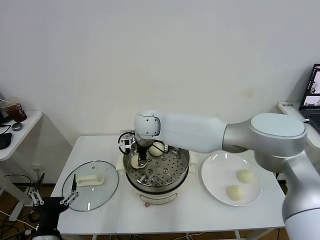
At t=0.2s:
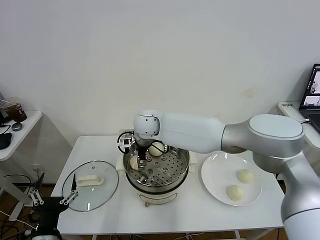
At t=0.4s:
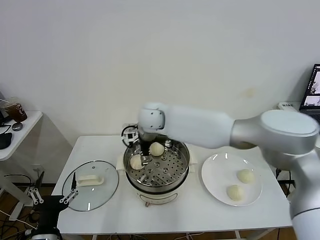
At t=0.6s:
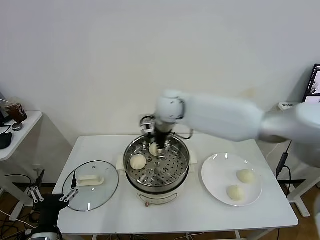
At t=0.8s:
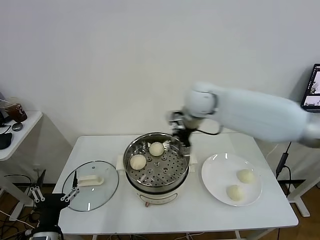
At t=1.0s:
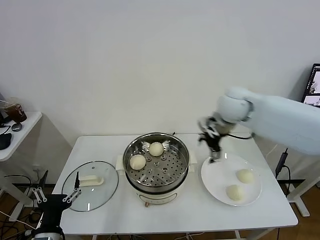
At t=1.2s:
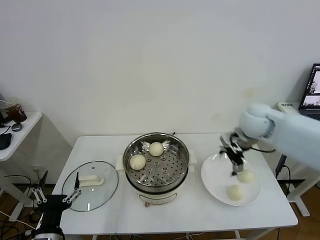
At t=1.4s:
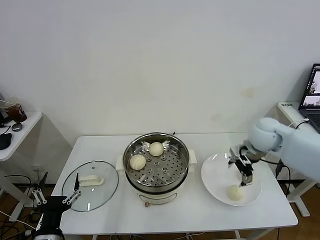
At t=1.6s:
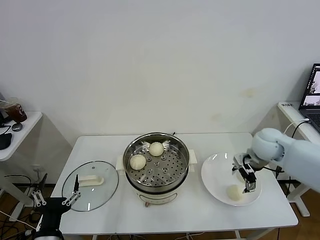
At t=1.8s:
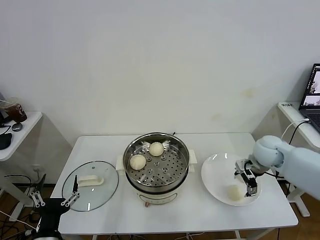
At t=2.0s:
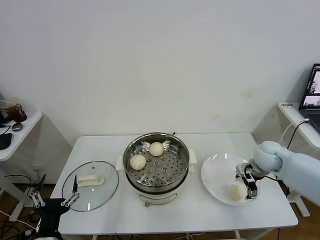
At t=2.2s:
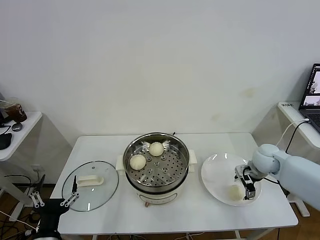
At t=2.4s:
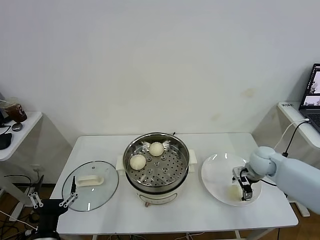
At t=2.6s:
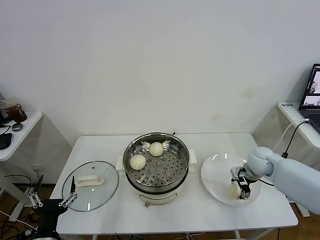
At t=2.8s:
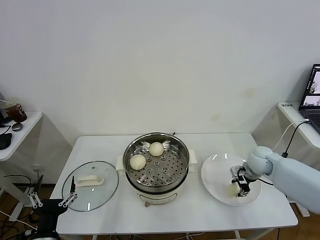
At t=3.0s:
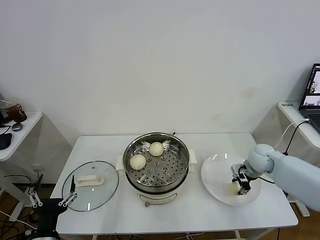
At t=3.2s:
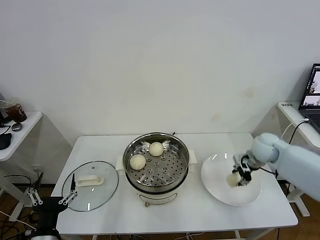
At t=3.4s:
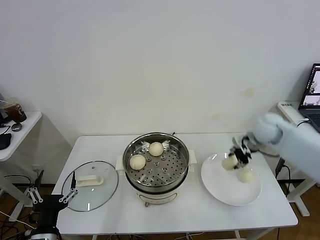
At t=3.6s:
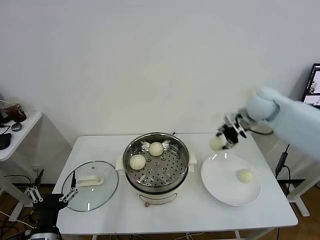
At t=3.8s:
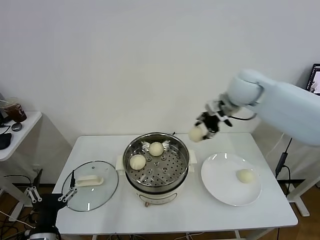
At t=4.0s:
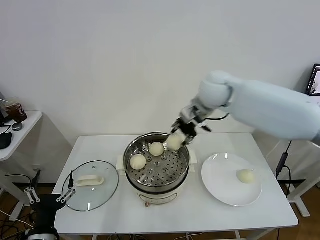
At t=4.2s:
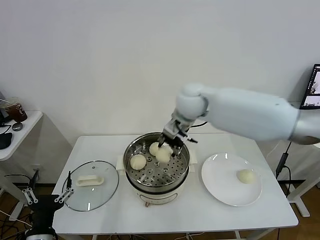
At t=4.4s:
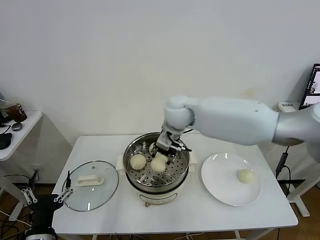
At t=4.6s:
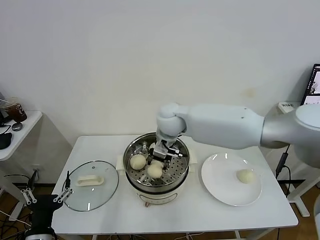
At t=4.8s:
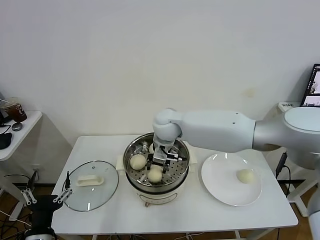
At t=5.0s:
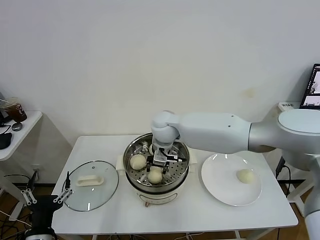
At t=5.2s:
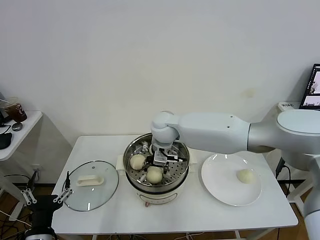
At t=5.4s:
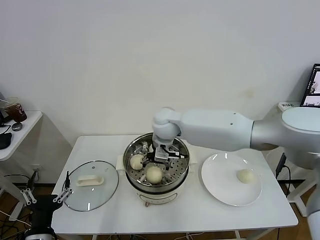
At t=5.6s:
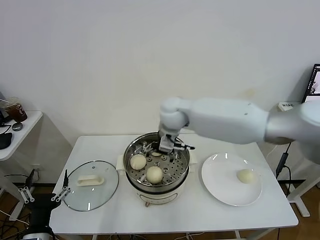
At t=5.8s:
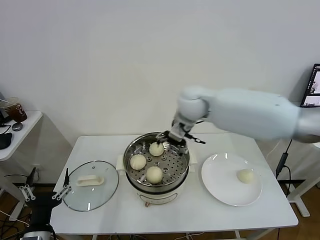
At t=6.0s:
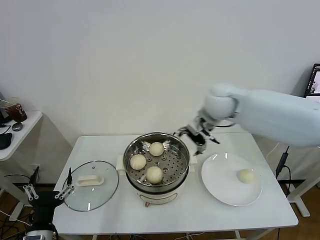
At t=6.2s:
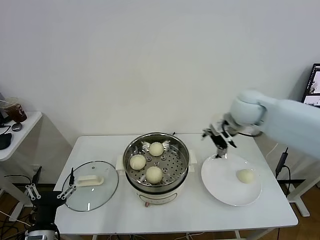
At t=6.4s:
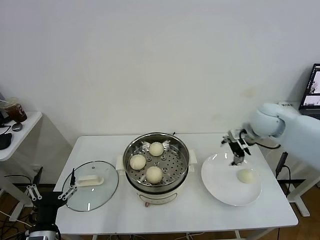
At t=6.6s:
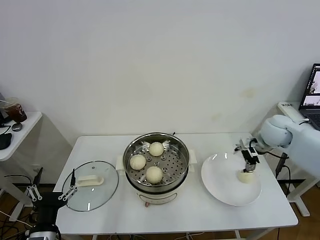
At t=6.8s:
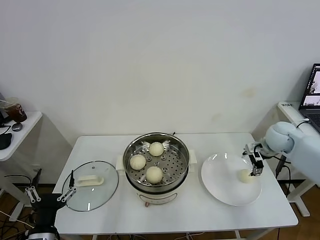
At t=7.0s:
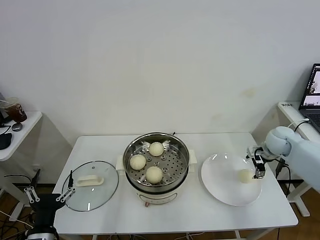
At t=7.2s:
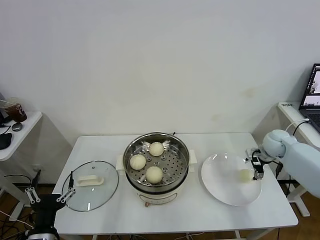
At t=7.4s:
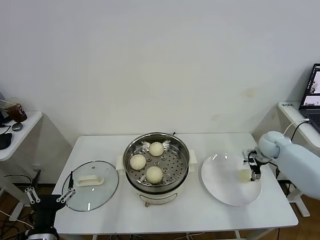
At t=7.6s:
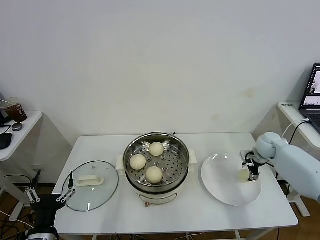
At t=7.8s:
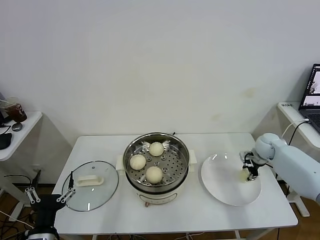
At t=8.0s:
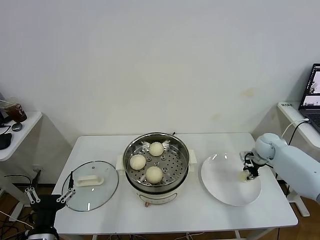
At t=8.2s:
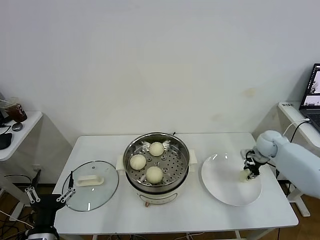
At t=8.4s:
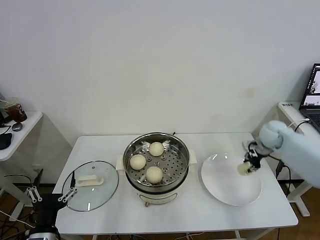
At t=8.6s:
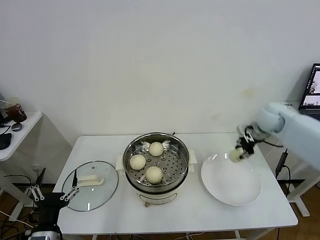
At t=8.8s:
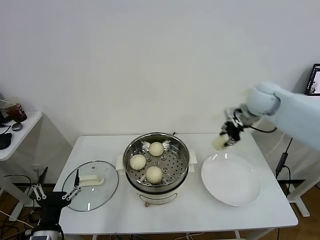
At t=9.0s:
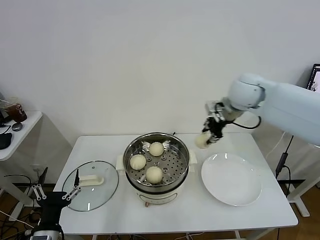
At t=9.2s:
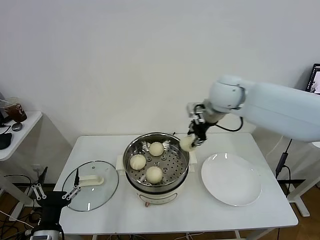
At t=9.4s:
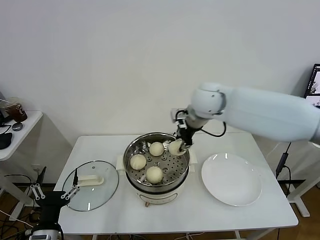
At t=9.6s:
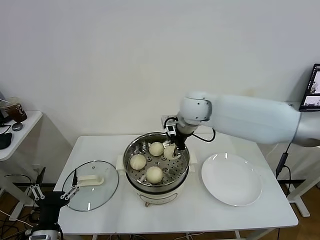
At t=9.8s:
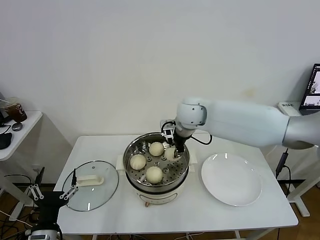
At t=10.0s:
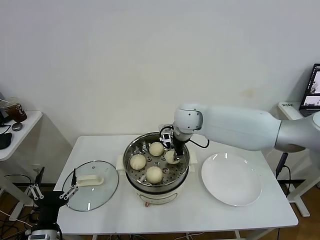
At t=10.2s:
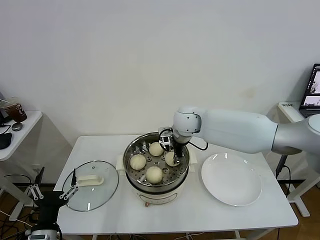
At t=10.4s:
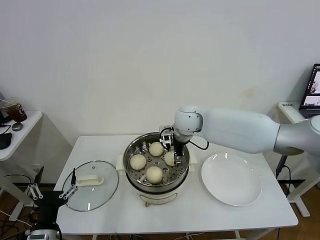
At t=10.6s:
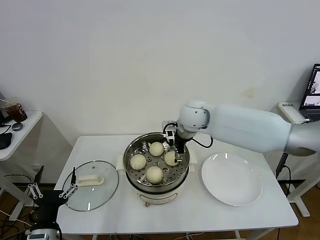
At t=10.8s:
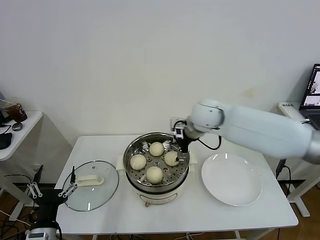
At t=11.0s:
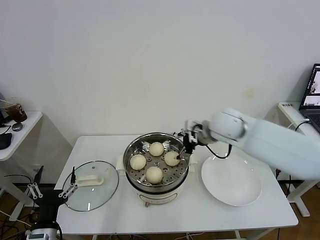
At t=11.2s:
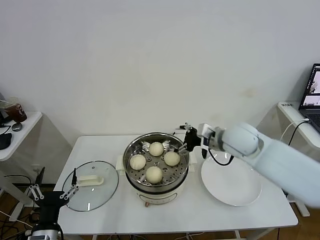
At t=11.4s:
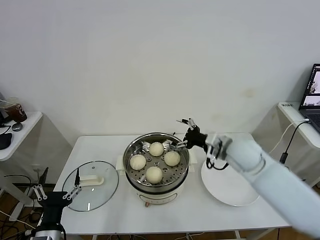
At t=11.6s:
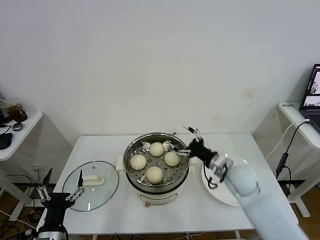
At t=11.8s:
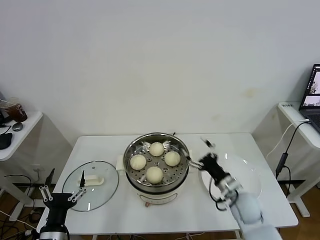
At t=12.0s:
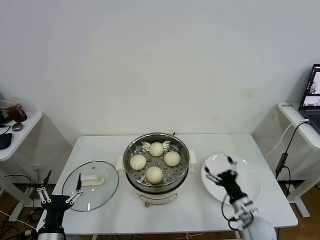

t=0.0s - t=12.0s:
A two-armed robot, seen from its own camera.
Task of the whole recording: take steamed baozi put them in steamer.
Step, t=0.6s - t=2.8s: Grasp the baozi in the plate with right gripper.
Step, t=3.0s - t=5.4s: Place the baozi on the steamer with right gripper.
Step, t=5.6s - t=8.0s: Grasp the baozi in the plate with right gripper.
Step, t=8.2s - t=10.6s: Place the baozi on the steamer with right gripper.
t=0.0s - t=1.6s: The right gripper goes approximately 40 cm to the right, and opens up.
t=1.6s - t=3.0s: The right gripper is displaced downward by roughly 5 cm, and closes up.
t=3.0s - t=4.4s: The right gripper travels to the left and upward by roughly 35 cm.
t=4.4s - t=6.0s: The right gripper is displaced to the right by some 15 cm, and opens.
t=6.0s - t=7.6s: The right gripper is displaced to the right and downward by about 35 cm.
t=7.6s - t=9.0s: The right gripper heads upward and to the left, covering approximately 30 cm, and closes its fingers.
t=9.0s - t=10.4s: The right gripper goes about 20 cm to the left and downward, and opens.
t=10.4s - t=12.0s: The right gripper goes about 40 cm backward, downward and to the right.

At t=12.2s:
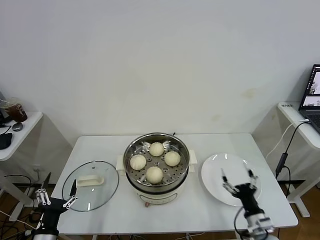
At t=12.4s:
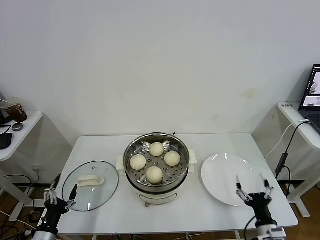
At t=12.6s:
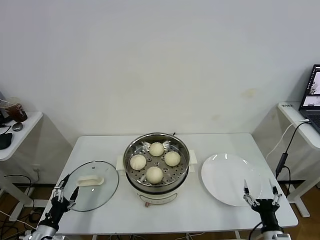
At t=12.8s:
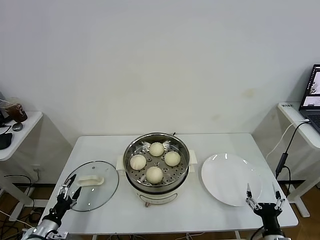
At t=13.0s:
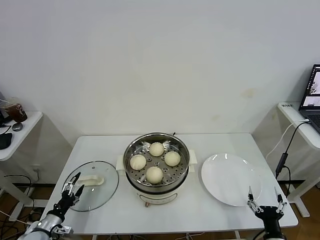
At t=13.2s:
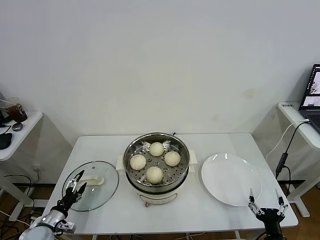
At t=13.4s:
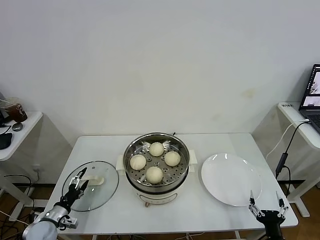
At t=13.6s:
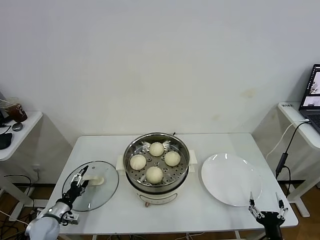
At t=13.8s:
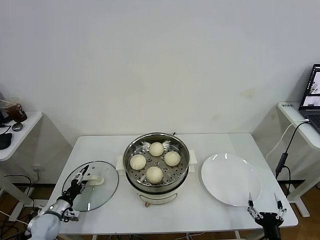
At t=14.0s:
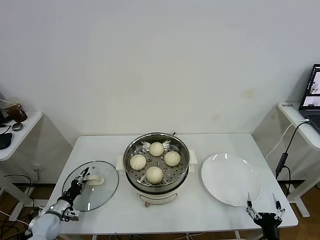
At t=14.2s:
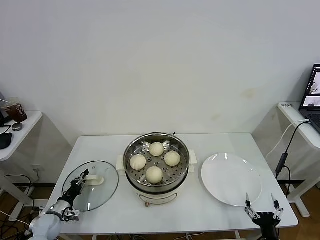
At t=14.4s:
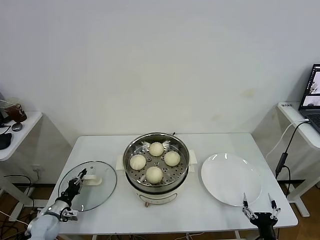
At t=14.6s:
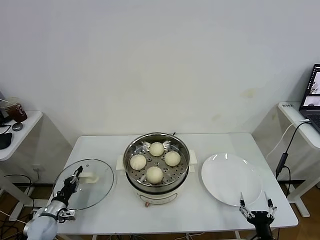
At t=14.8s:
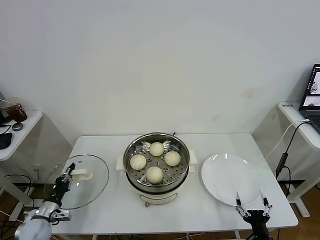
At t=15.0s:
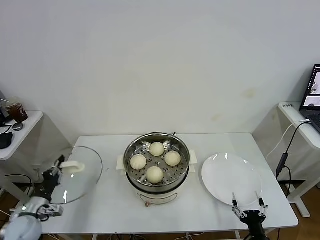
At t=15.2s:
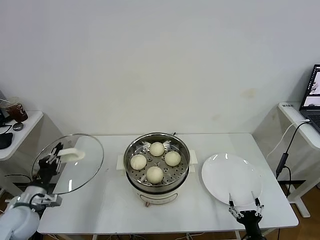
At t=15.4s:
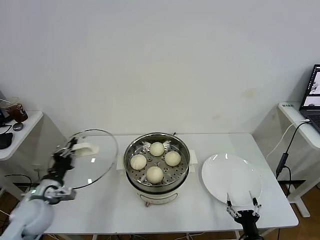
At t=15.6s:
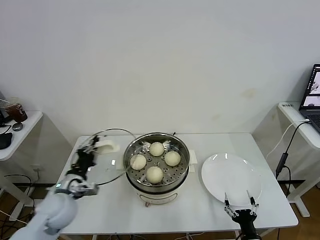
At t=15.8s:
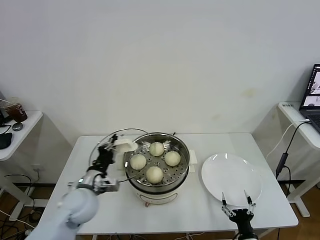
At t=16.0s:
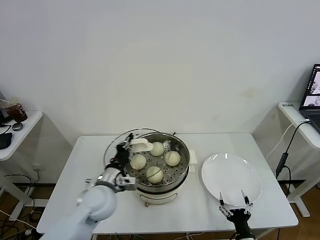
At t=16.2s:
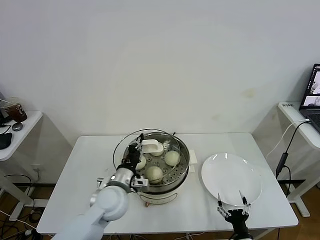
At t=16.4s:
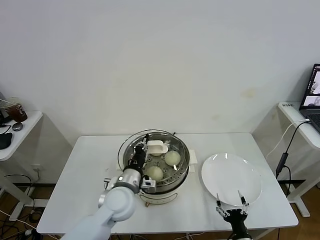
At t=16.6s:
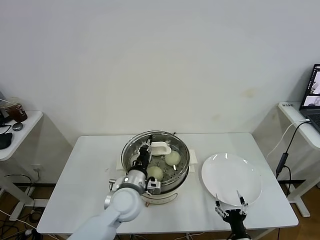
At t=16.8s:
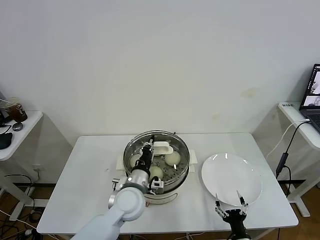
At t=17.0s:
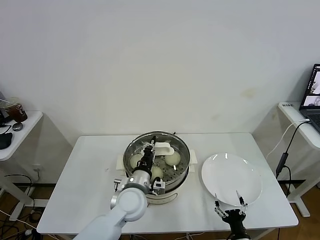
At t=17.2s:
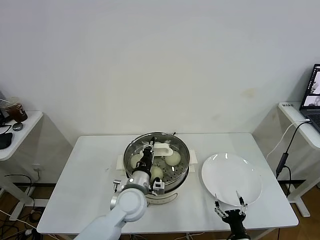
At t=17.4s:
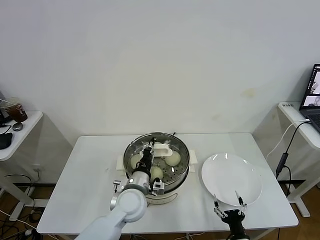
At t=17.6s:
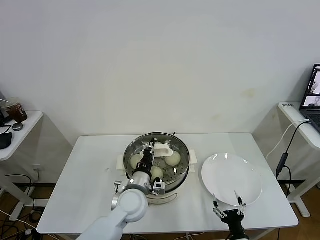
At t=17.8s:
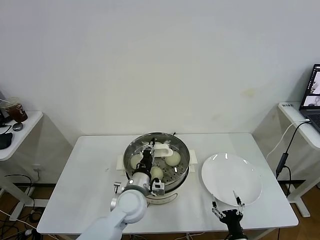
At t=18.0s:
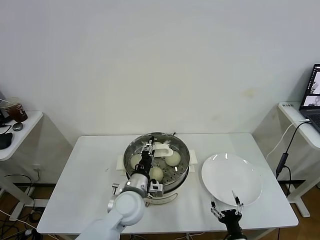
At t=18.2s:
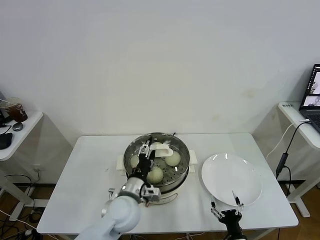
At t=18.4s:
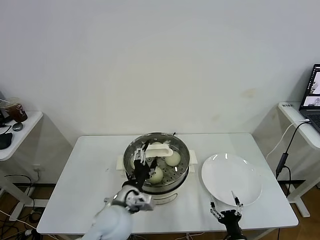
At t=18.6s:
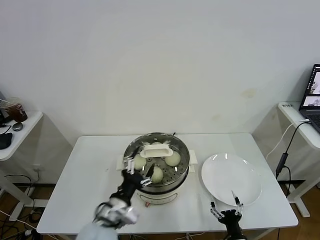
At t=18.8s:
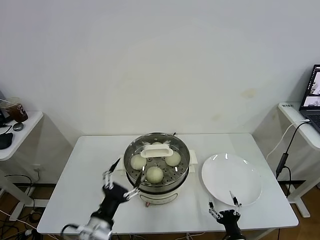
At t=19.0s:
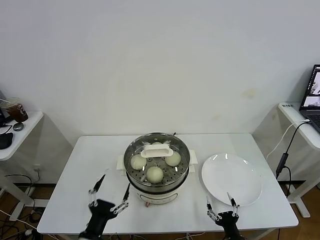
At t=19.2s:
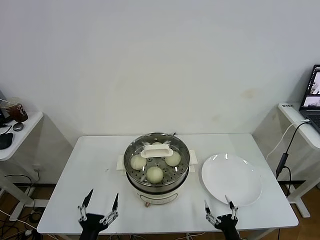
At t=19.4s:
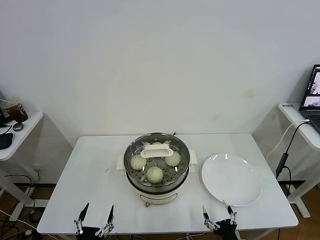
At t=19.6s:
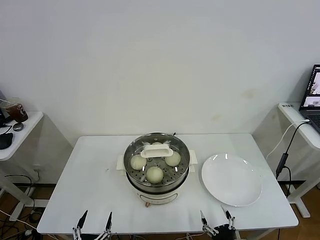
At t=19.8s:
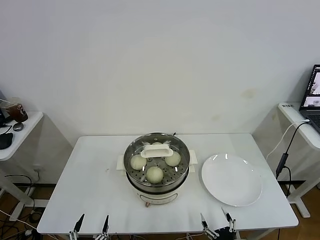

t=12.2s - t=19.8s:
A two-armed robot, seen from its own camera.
Task of the whole recording: take steamed baozi put them in steamer.
Step, t=12.2s - t=14.4s: Grasp the pot lid with left gripper.
Step, t=14.6s - t=18.6s: Place the pot lid on the steamer with left gripper.
t=12.2s - t=13.8s: The right gripper shifts roughly 10 cm backward. The left gripper goes some 20 cm forward, downward and to the left.
t=13.8s - t=15.2s: The left gripper heads upward, covering roughly 15 cm, and closes its fingers.
t=15.2s - t=16.8s: The left gripper shifts approximately 30 cm to the right.
t=16.8s - t=18.2s: The left gripper opens its fingers.
t=18.2s - t=19.8s: The right gripper shifts approximately 5 cm backward. Meanwhile the left gripper is displaced backward, to the left and downward by roughly 30 cm, and opens up.
